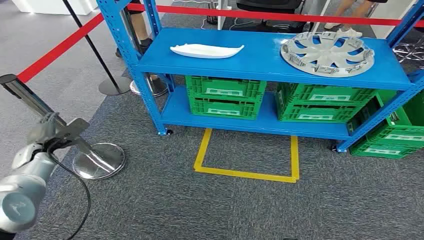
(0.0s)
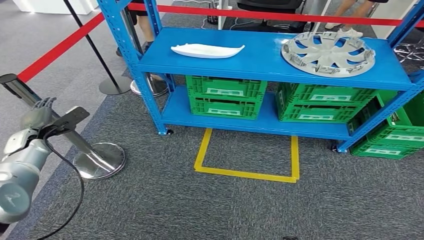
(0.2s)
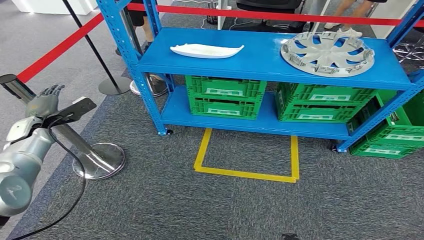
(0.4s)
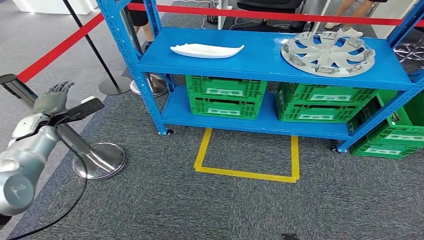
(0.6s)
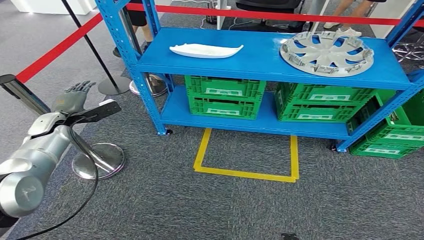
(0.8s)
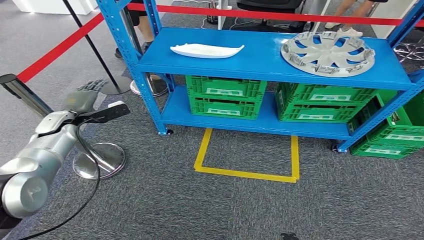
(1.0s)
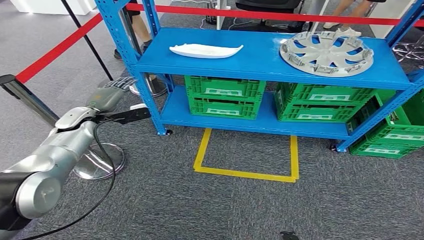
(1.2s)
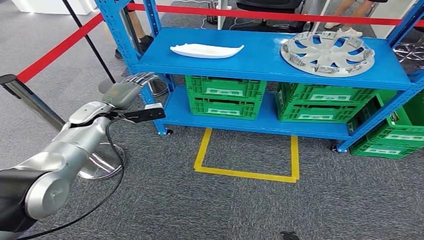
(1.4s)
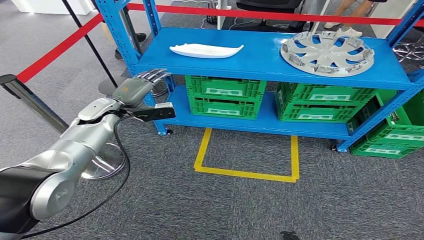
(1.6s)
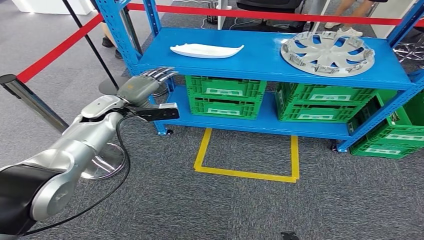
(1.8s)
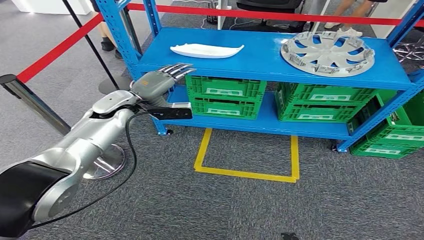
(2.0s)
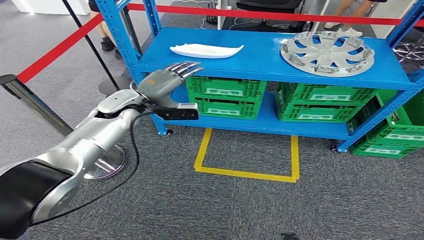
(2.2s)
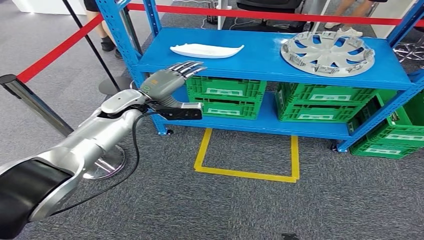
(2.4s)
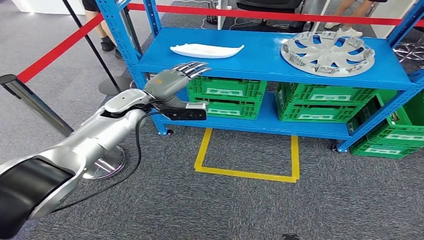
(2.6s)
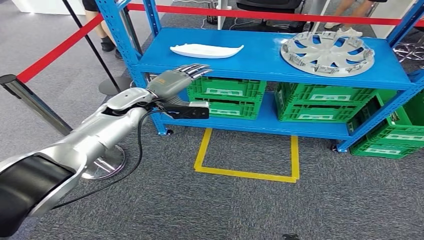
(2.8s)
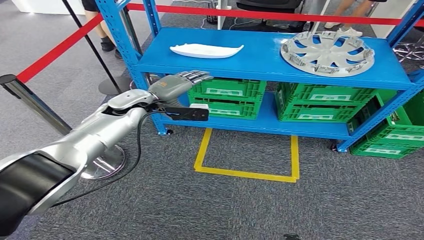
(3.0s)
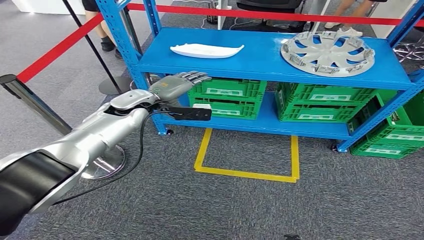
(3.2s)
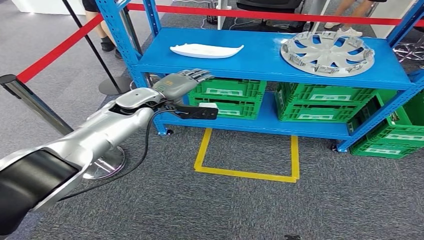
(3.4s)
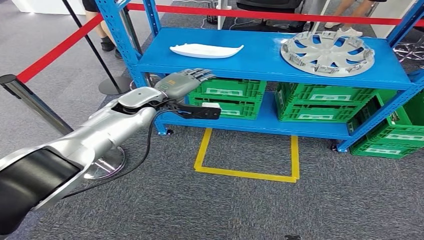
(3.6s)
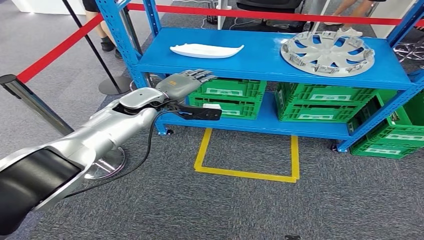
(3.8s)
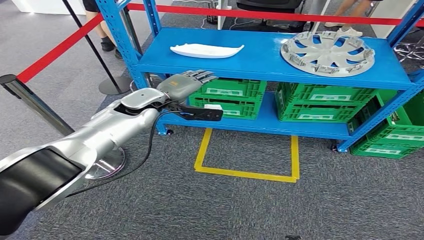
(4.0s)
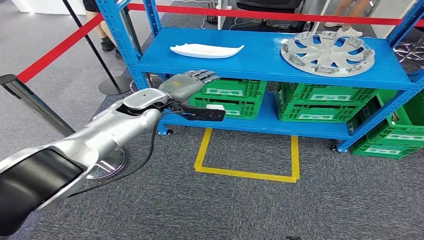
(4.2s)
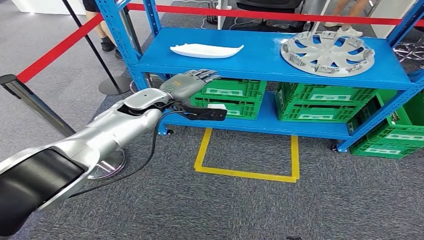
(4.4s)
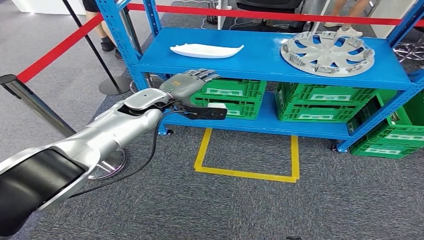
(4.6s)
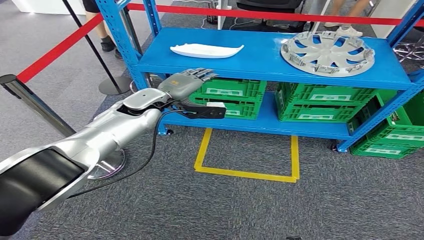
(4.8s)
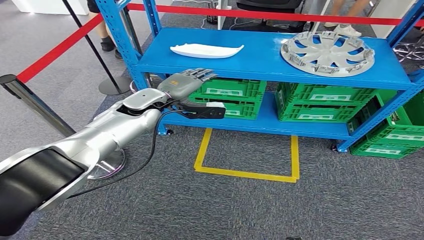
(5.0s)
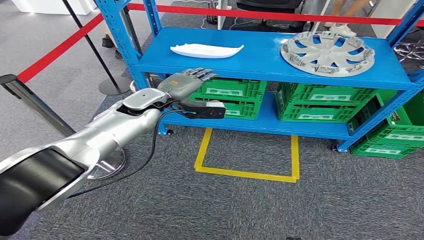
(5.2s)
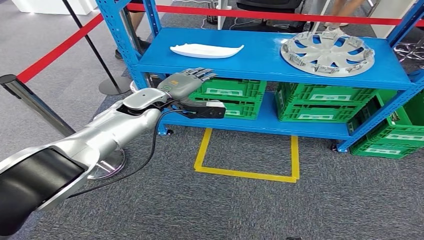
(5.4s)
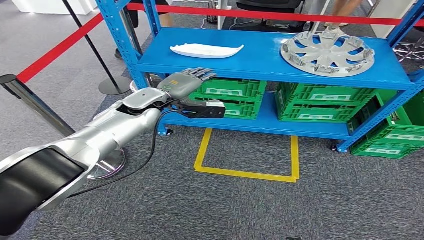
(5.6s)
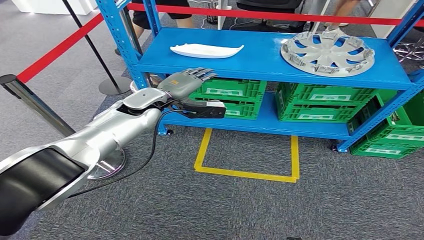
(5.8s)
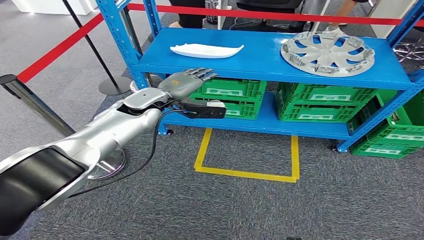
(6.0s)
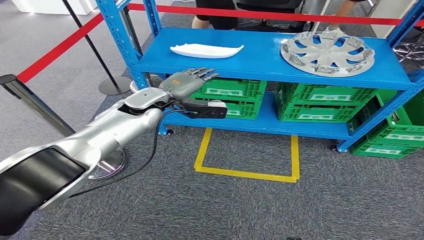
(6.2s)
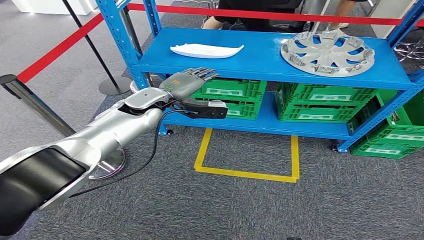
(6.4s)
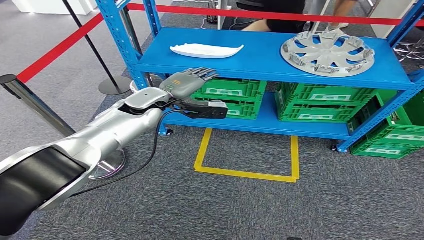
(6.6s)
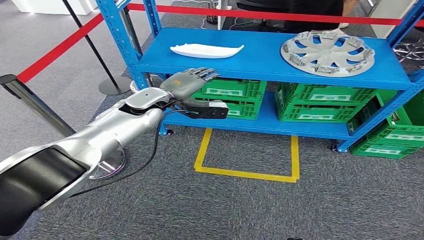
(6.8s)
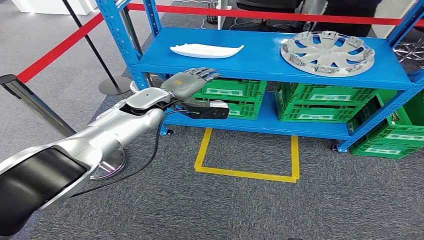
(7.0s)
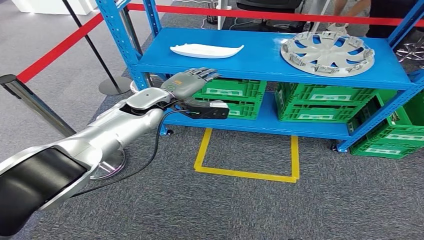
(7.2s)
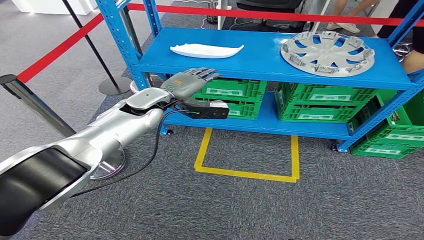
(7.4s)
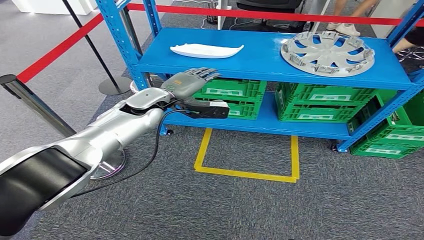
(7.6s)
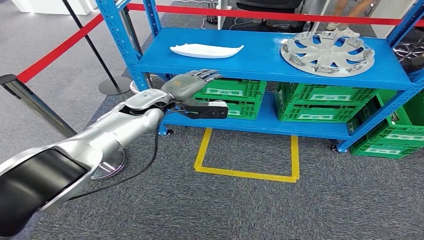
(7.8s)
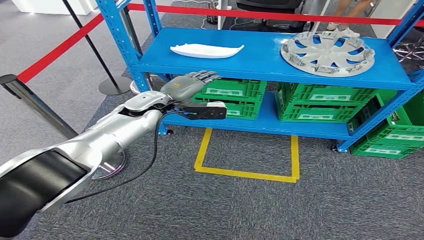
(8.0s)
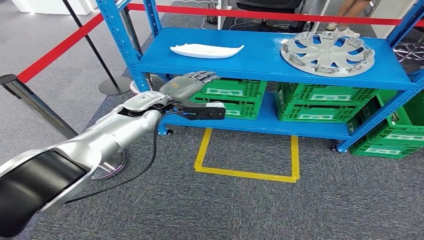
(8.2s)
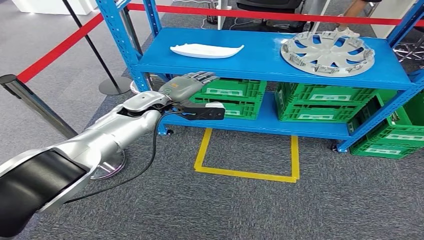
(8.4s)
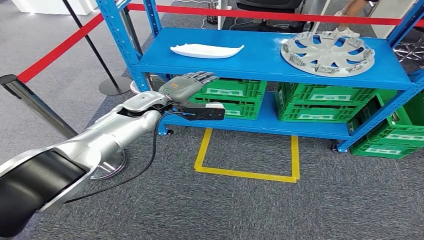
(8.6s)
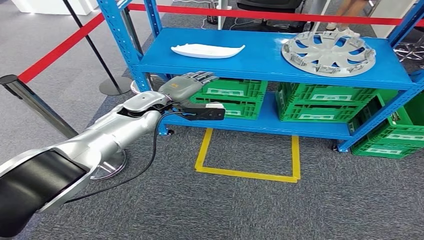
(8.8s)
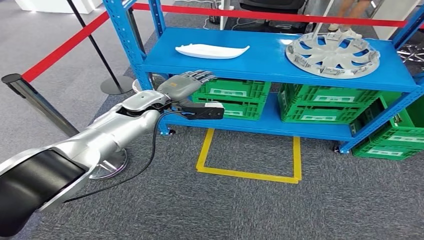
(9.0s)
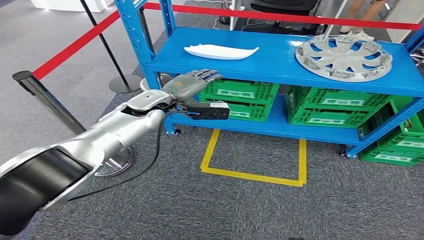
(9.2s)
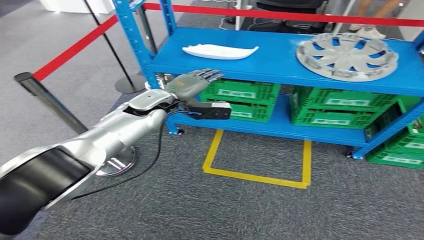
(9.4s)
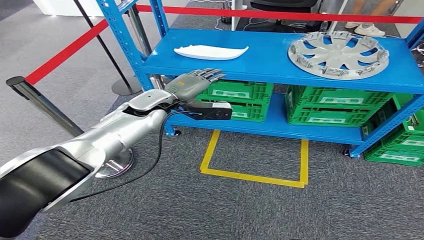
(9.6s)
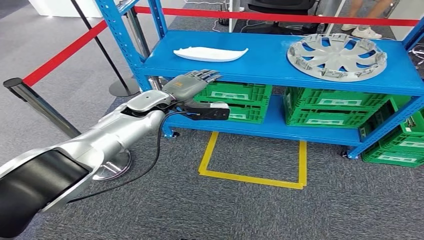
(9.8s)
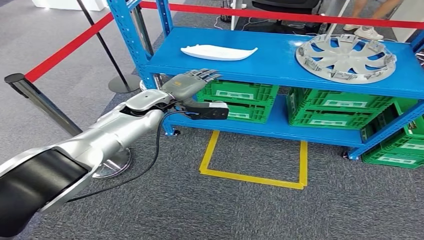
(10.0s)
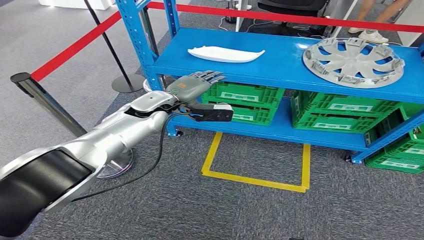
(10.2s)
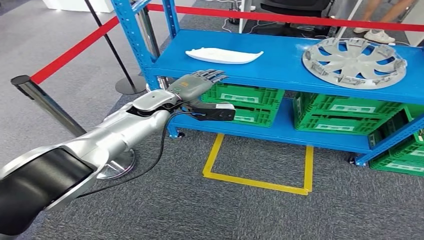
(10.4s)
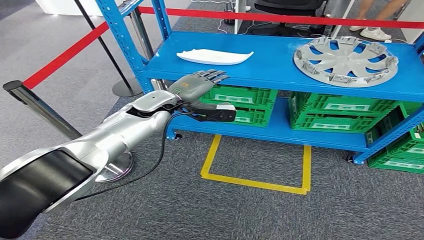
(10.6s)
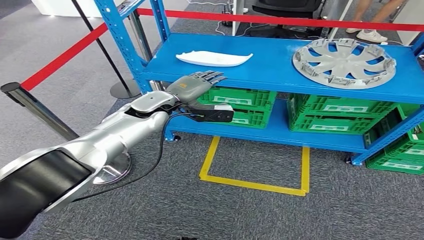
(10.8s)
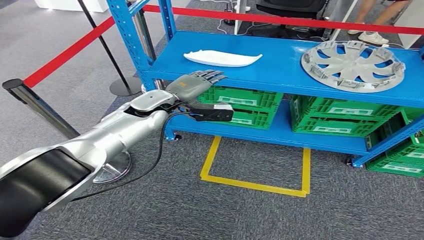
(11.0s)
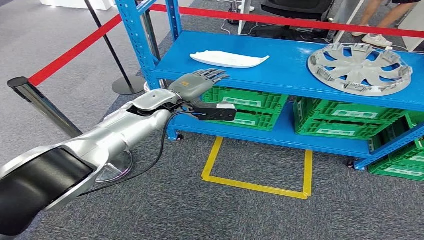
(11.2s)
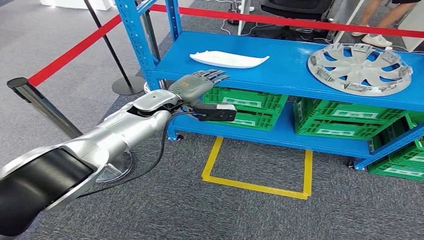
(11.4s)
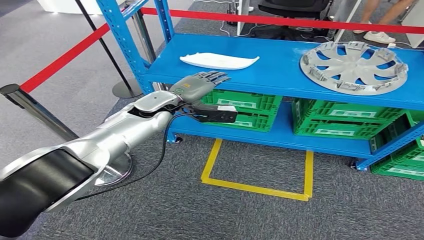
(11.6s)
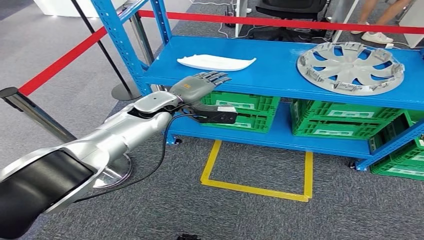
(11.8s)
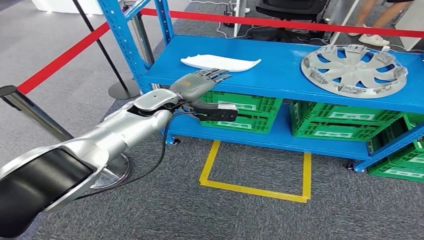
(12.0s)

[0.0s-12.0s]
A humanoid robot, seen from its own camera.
1.6s to 3.0s: The left hand goes some 5 cm to the right.
3.0s to 4.4s: The hands make only small movements.
4.4s to 7.6s: Neither hand changes place.
7.6s to 9.0s: The hands stay close to where they were, moving slightly.

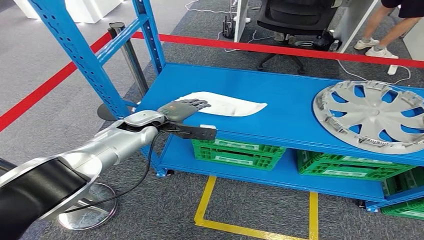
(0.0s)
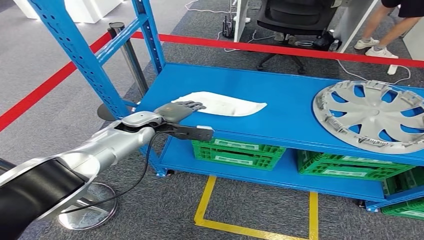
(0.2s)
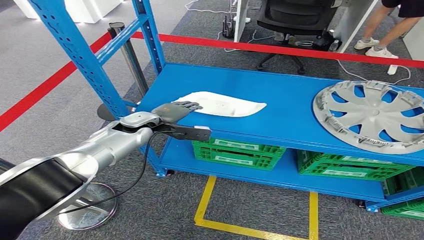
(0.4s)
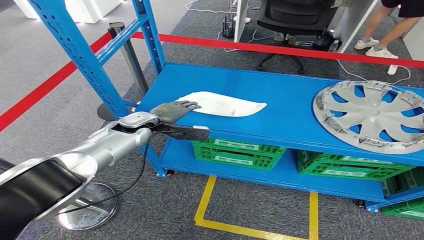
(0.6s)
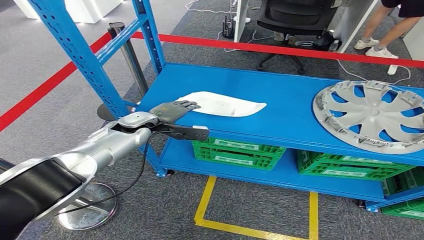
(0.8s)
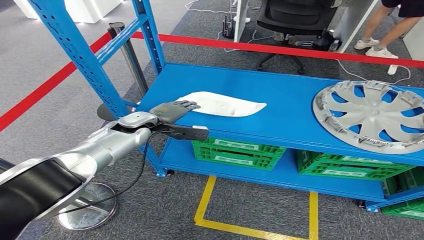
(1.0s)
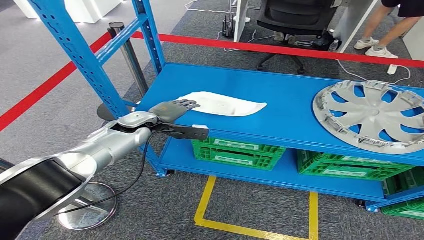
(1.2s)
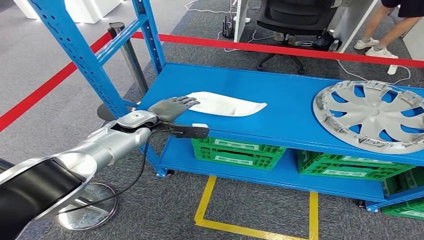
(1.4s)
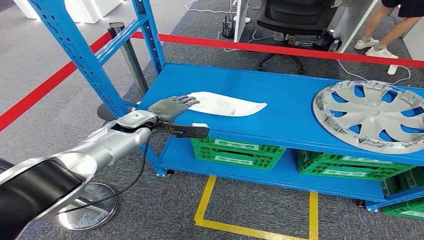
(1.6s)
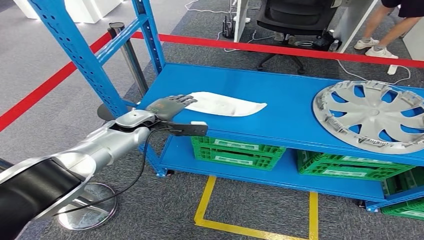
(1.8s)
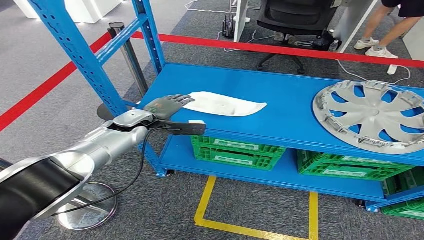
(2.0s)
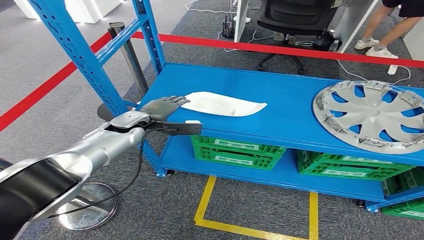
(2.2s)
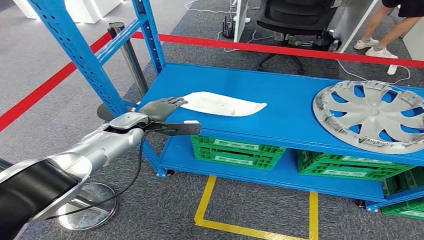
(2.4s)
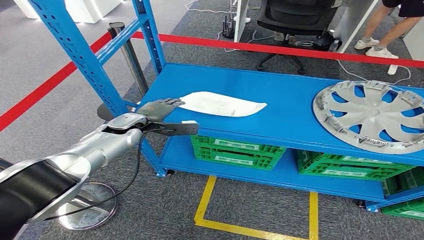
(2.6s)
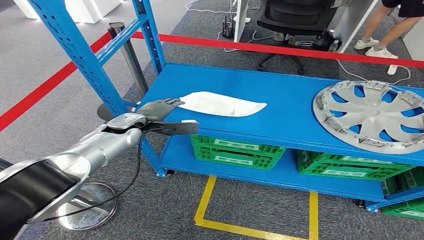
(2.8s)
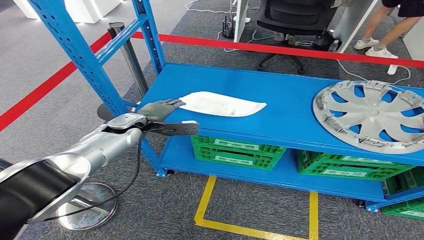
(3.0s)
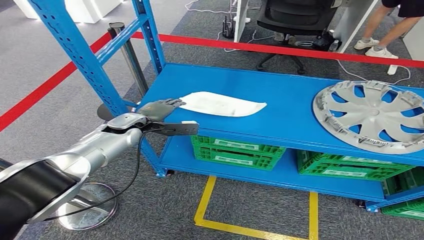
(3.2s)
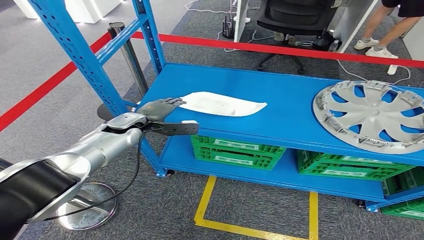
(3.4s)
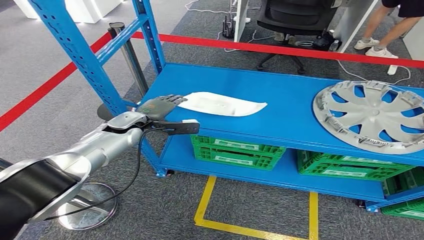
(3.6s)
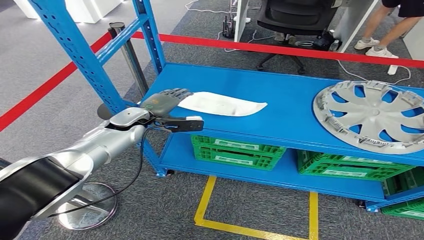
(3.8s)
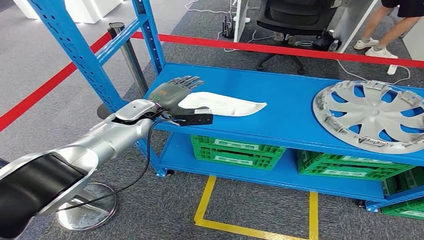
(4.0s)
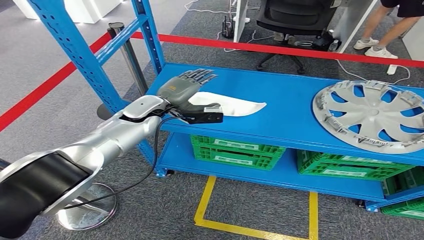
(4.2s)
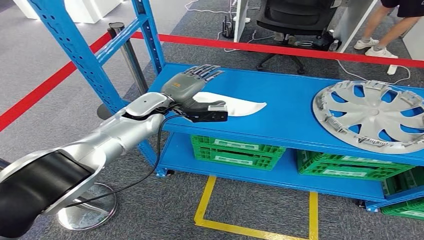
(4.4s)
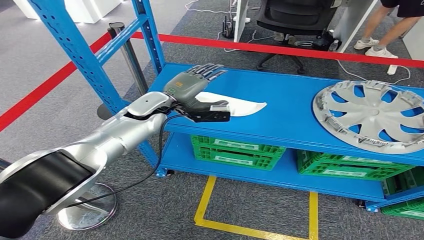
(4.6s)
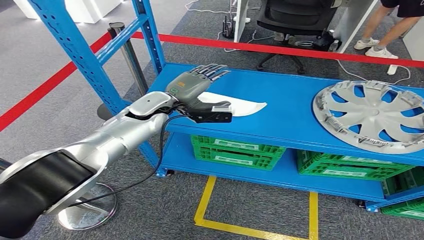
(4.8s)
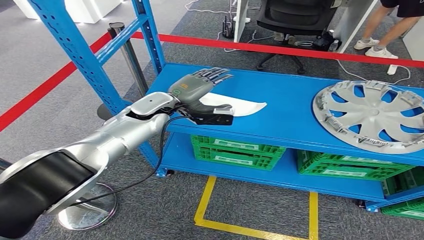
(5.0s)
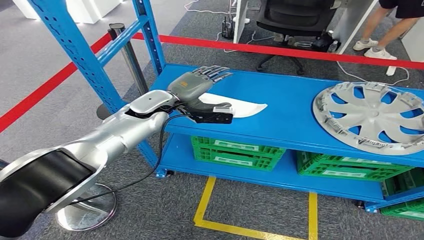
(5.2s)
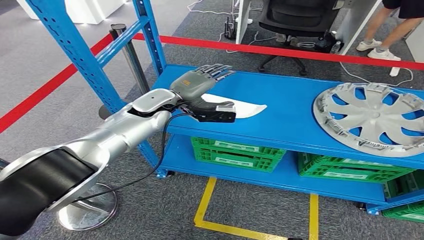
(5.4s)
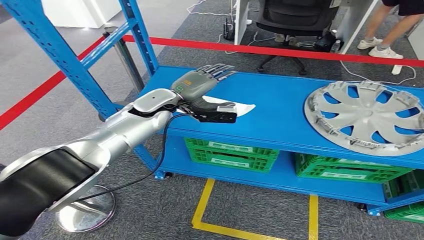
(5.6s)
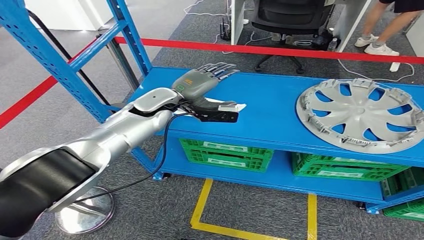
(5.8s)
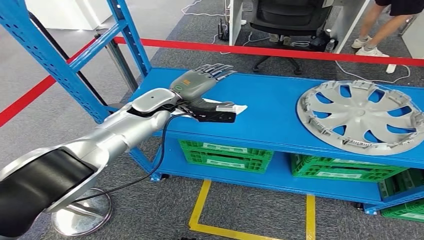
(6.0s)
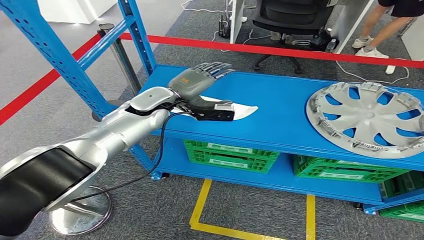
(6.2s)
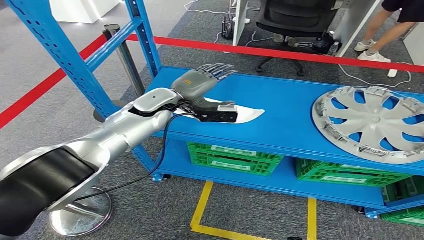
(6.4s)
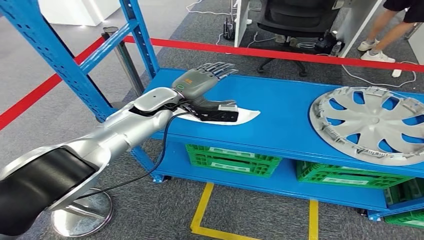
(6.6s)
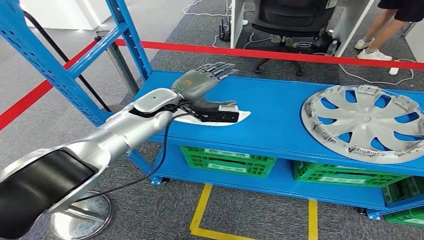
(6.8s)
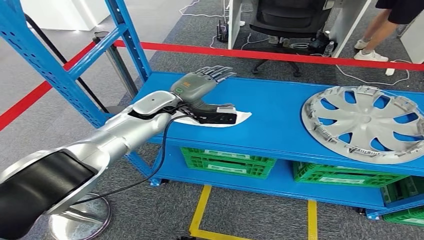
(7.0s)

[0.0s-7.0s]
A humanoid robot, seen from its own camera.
0.0s to 2.8s: The hands move only a little.
2.8s to 4.2s: The left hand heads upward and to the right, covering some 10 cm.
